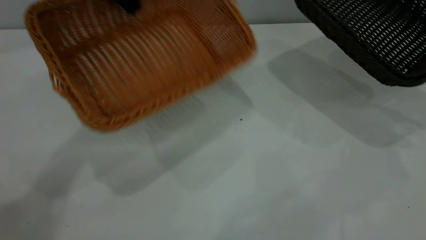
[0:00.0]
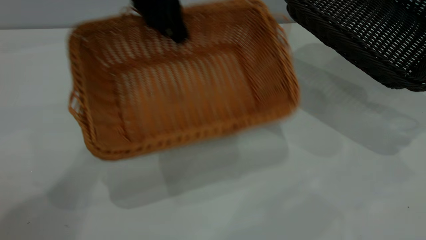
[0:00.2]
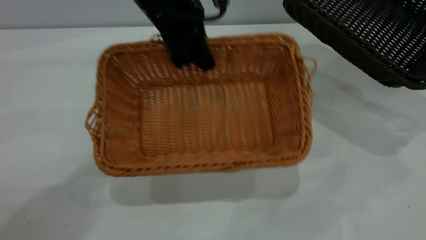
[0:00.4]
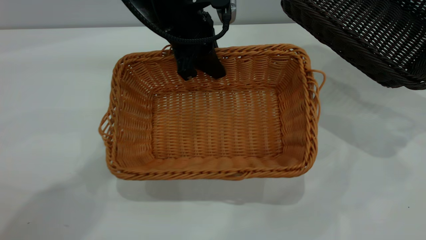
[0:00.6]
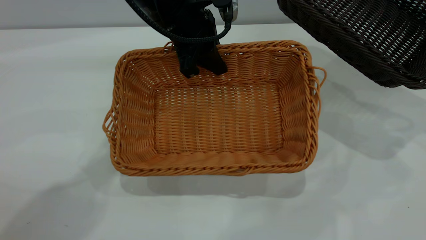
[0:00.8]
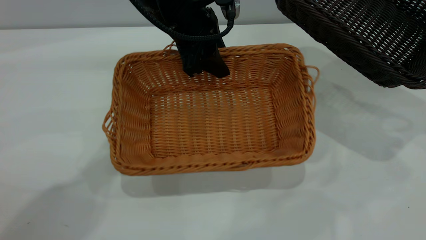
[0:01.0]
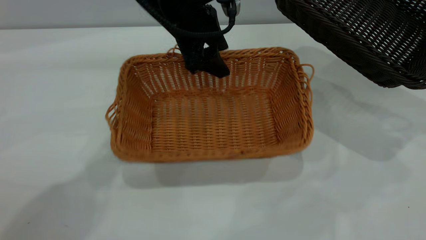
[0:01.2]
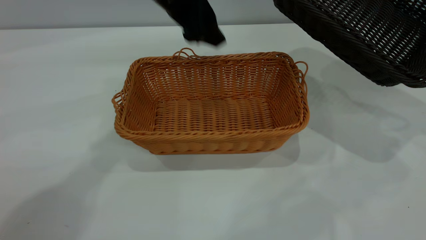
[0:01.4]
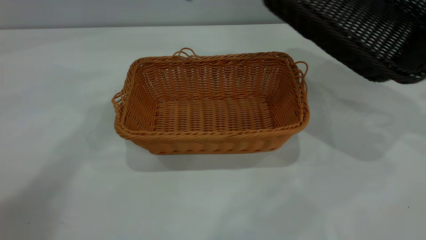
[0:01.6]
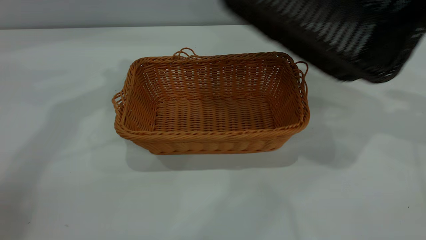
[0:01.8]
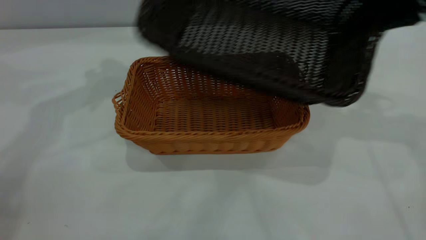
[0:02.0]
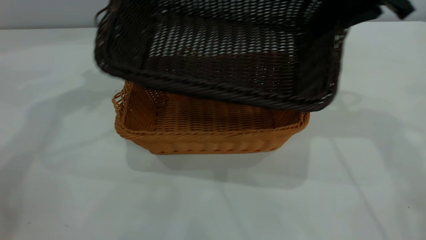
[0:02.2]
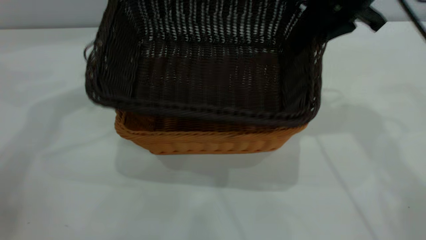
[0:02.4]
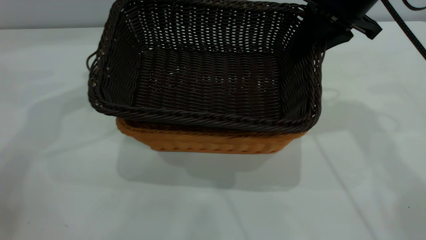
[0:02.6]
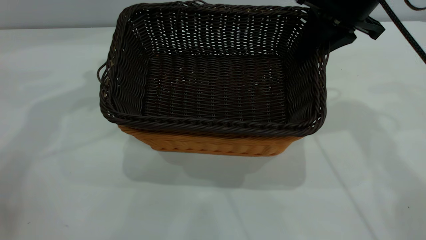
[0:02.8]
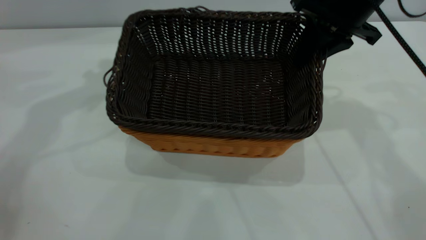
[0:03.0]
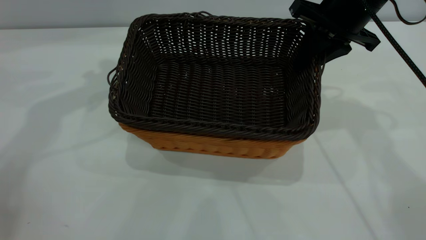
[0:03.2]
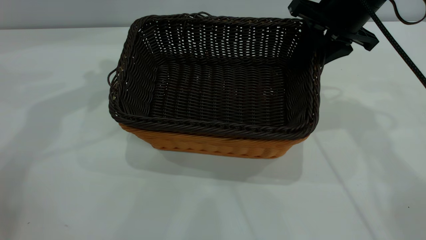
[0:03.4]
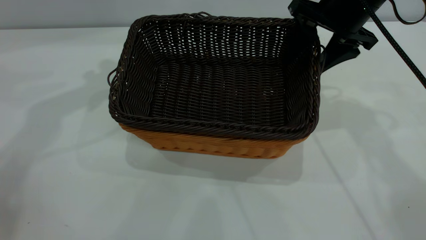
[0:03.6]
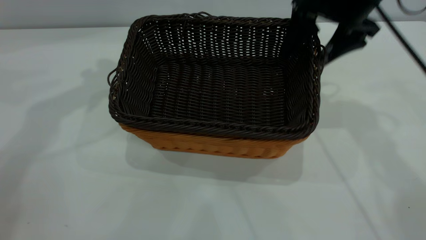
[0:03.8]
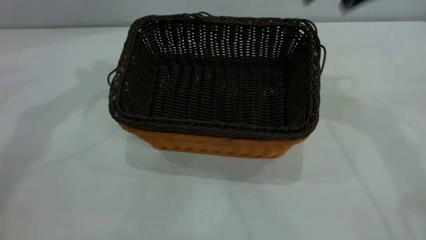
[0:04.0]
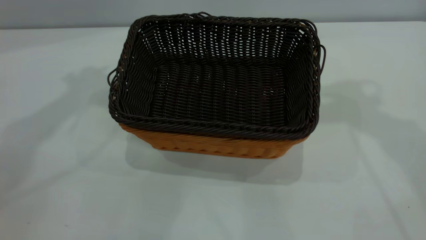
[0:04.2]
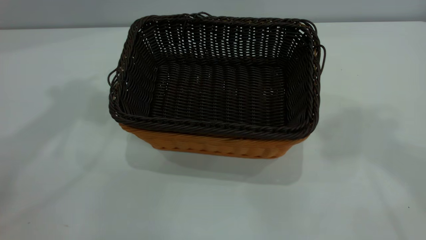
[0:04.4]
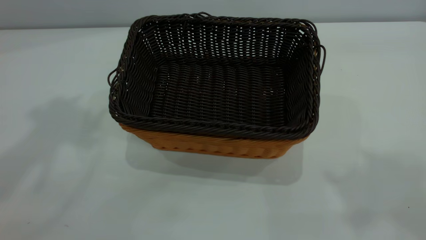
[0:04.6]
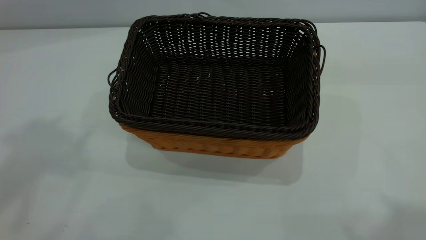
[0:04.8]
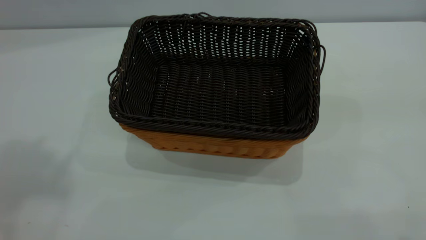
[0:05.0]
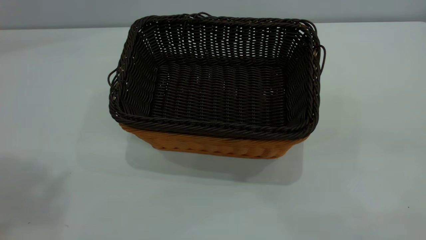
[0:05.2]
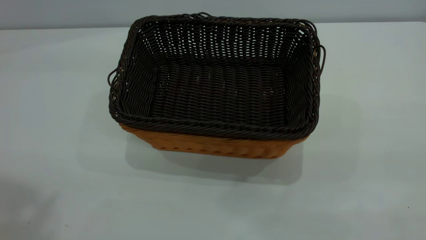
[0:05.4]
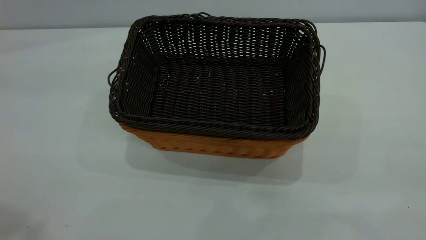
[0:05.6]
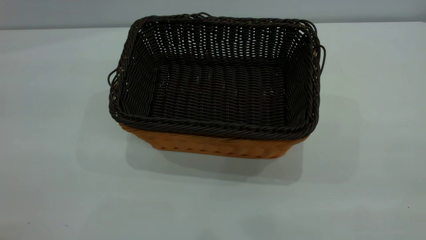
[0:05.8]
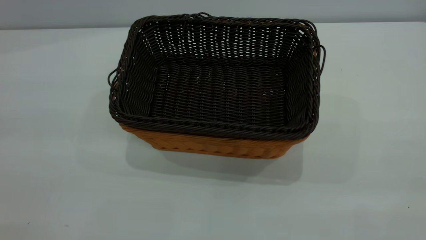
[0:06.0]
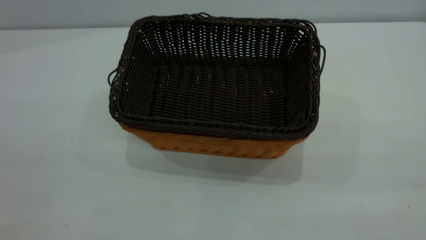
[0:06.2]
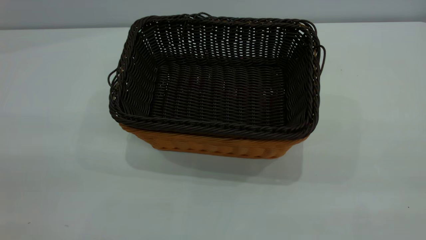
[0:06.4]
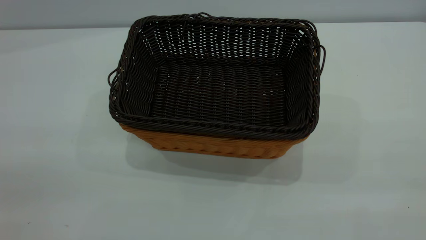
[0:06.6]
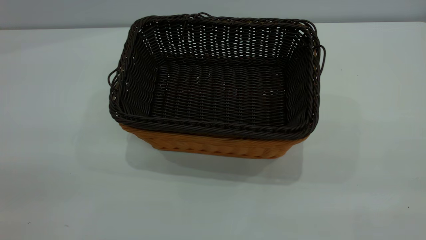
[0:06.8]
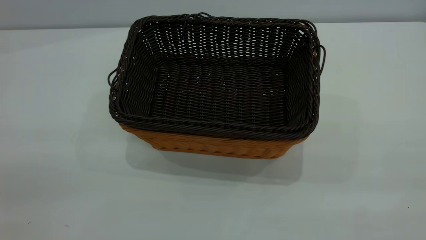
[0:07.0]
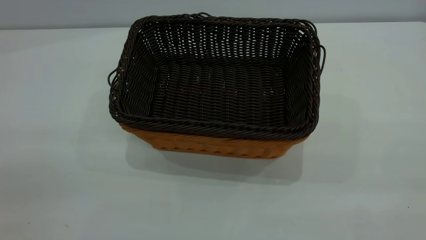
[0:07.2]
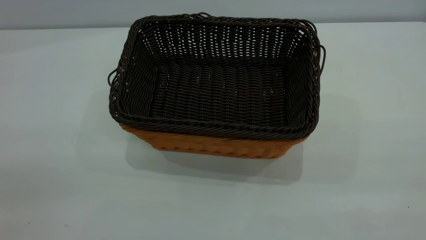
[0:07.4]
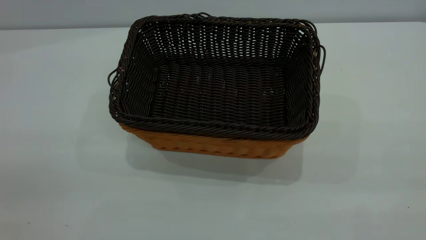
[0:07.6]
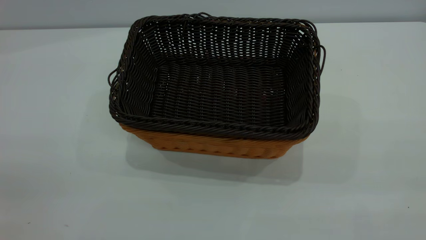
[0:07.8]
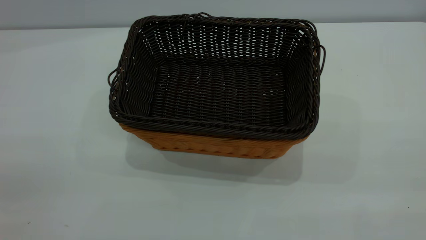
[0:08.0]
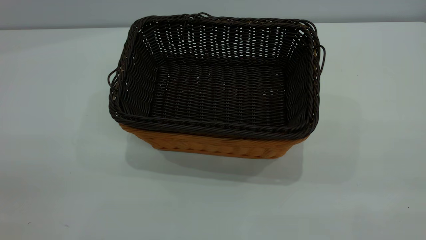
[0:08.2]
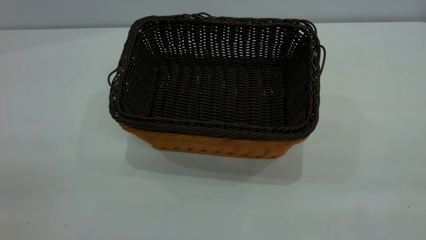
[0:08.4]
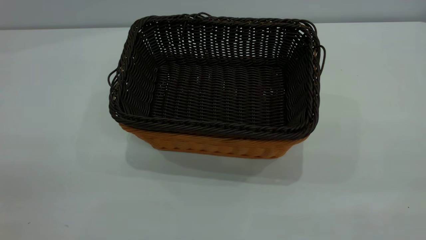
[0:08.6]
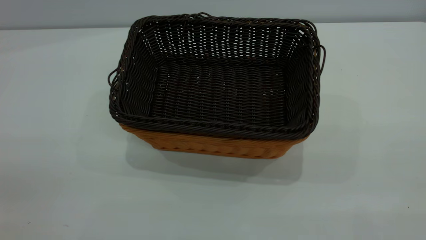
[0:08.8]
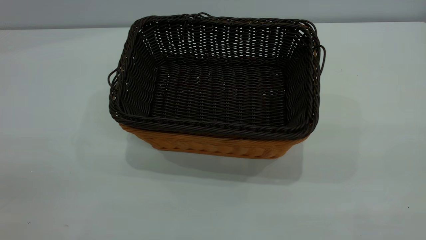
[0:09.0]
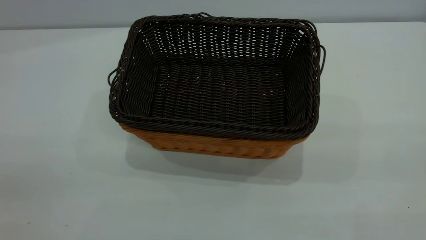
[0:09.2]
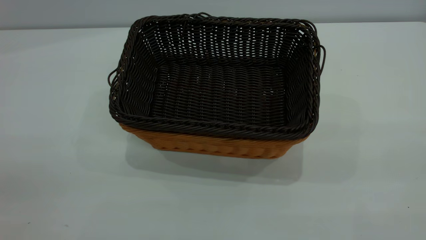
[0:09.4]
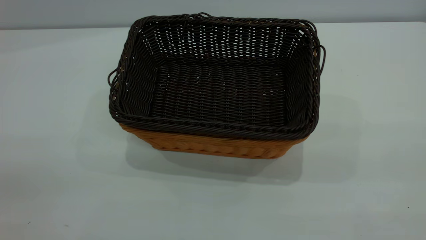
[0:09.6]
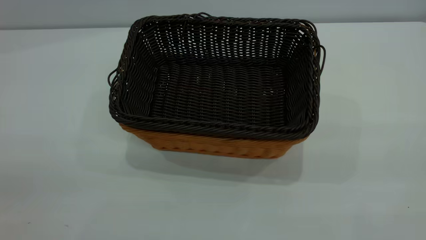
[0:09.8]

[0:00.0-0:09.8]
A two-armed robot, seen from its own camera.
Task of the whole recording: the left gripper grasp the brown basket and place it in the center of the table, the right gripper grasp the black basket and place it inside the brown one.
Step, 0:00.0 to 0:01.4: Place the light-colored basket in the center.
Step, 0:01.6 to 0:03.8: Place the dark basket on top of the light basket.
0:00.0 to 0:01.4: The left gripper moves to the right, about 5 cm, and opens.
0:01.4 to 0:02.8: The left gripper shifts some 15 cm to the left and upward. The right gripper travels to the left by approximately 25 cm.
0:02.8 to 0:04.2: The grippers both shift upward by roughly 15 cm. The right gripper opens.
